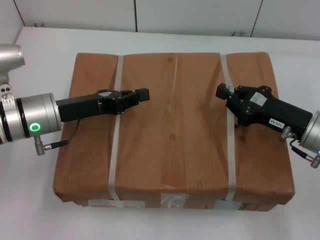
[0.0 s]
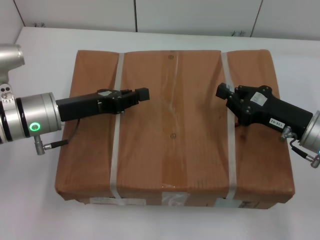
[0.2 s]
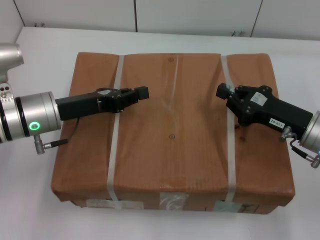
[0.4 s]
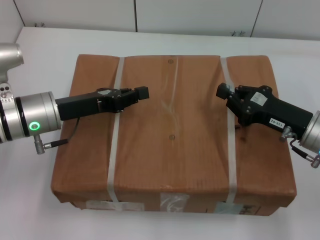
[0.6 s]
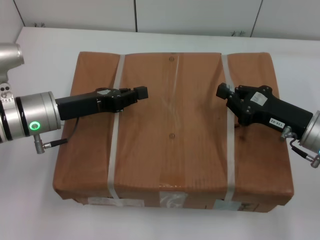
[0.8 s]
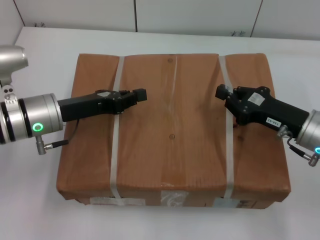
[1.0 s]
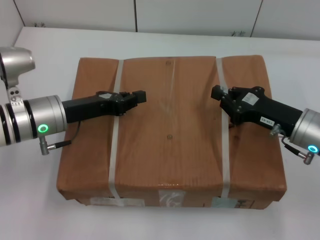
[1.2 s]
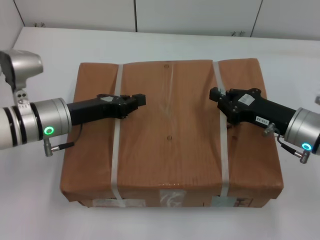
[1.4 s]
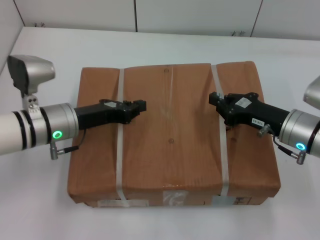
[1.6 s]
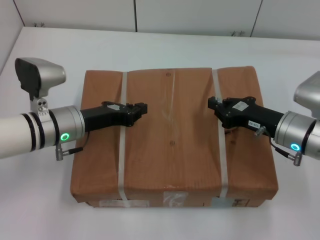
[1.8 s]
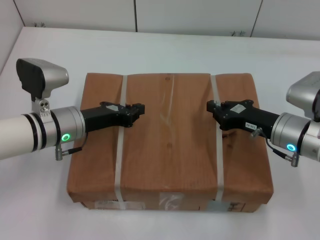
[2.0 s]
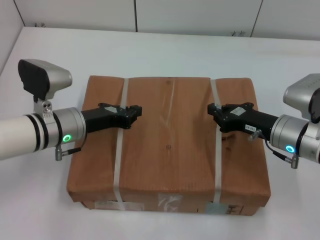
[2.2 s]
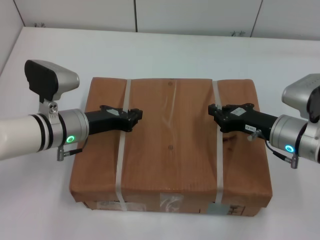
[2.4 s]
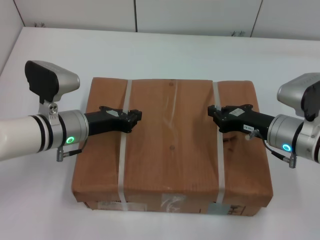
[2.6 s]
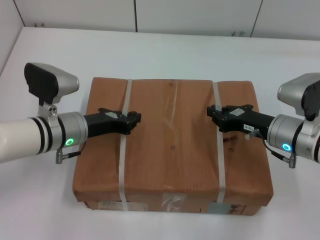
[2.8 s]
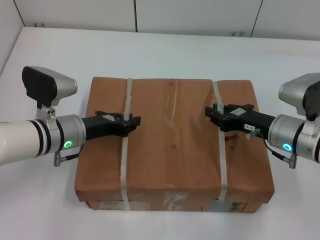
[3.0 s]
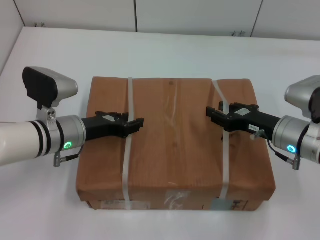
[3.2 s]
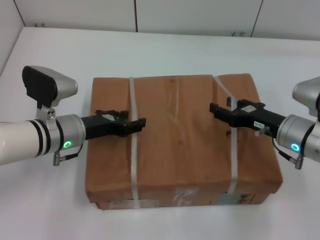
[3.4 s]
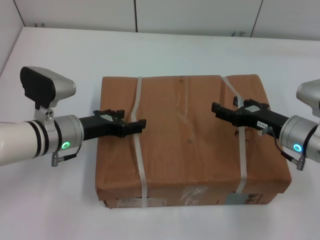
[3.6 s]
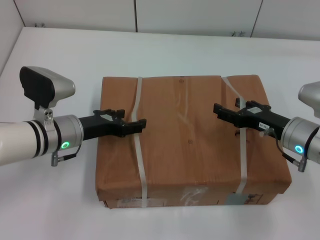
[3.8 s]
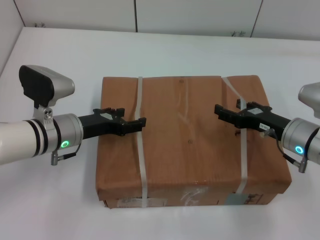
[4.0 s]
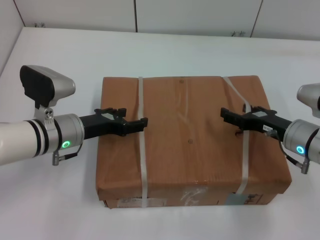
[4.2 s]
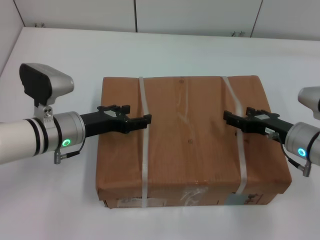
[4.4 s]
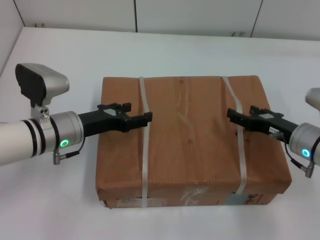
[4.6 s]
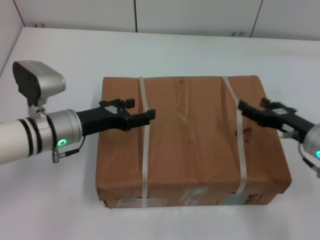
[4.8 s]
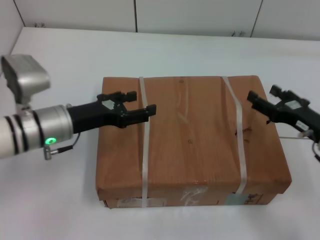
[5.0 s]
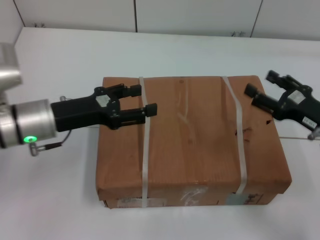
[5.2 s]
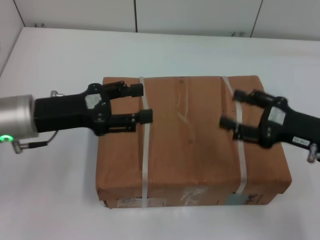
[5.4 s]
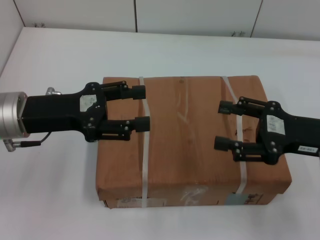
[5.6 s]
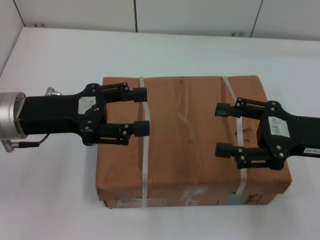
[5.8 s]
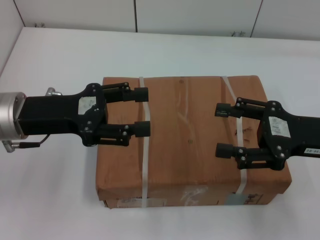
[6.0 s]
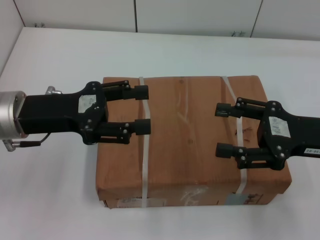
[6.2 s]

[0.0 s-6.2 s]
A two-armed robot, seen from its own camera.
Task of the whole recording: place the box on the table with both arms.
Step, 0.0 to 2.6 s: Place the box on the table with left gripper.
Step, 0.0 to 2.6 s: Place the box on the table with right gripper.
Step, 2.8 to 4.2 s: Loosen the box on the table with left gripper.
Step, 2.8 to 4.2 s: Loosen the box on the table with right gripper.
3.2 to 4.6 s: The left gripper opens. Meanwhile the right gripper opens its fingers.
4.6 to 6.2 s: The grippers both shift upward by some 10 cm.
